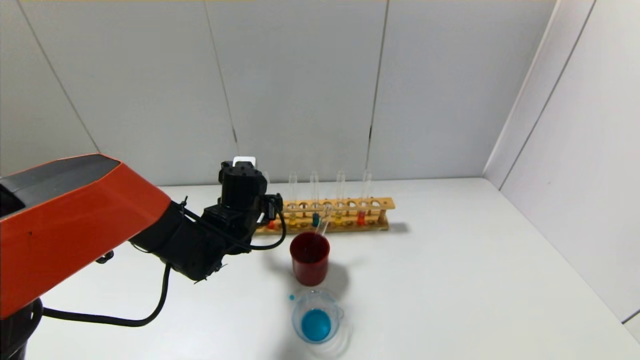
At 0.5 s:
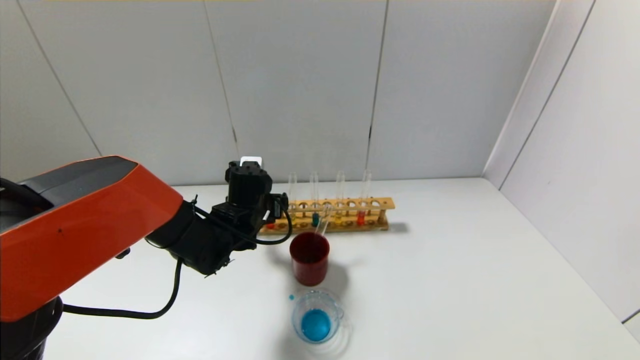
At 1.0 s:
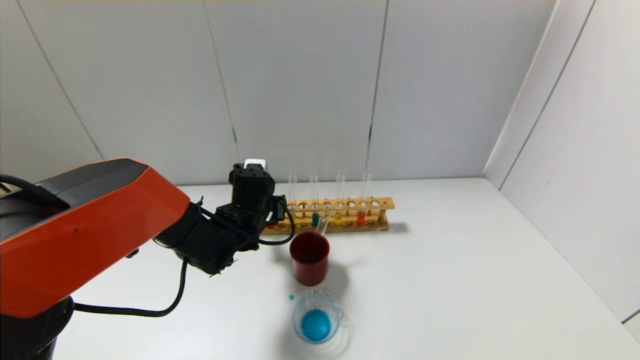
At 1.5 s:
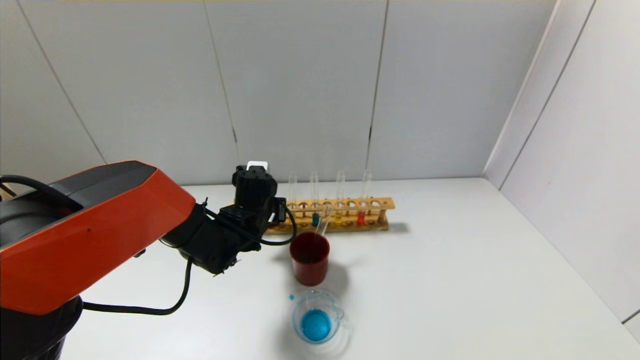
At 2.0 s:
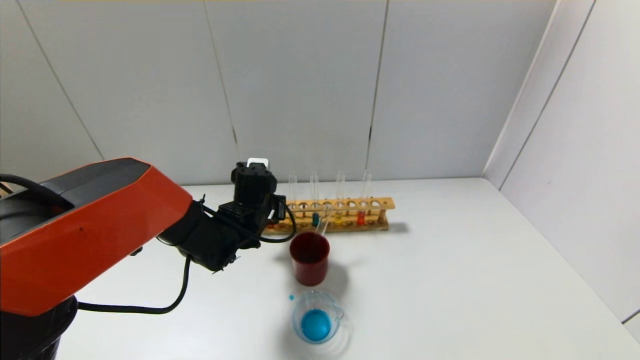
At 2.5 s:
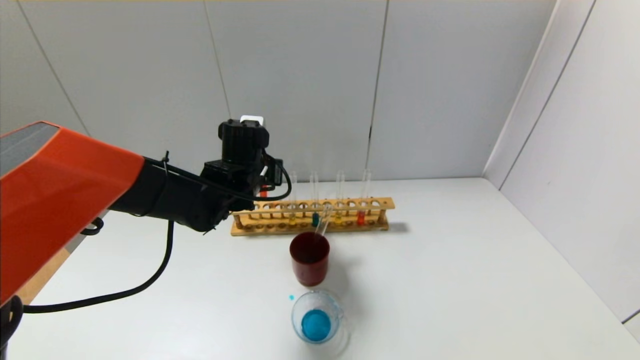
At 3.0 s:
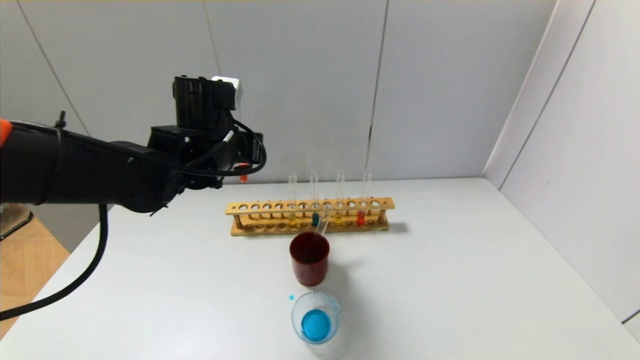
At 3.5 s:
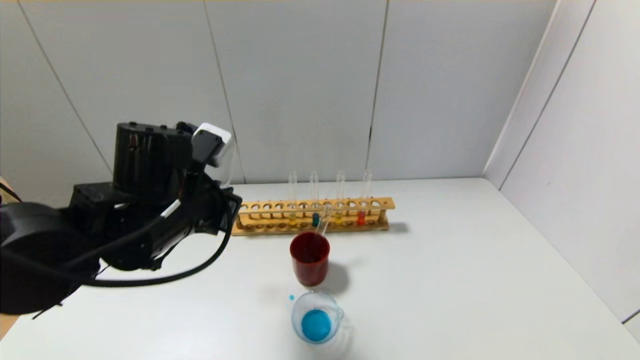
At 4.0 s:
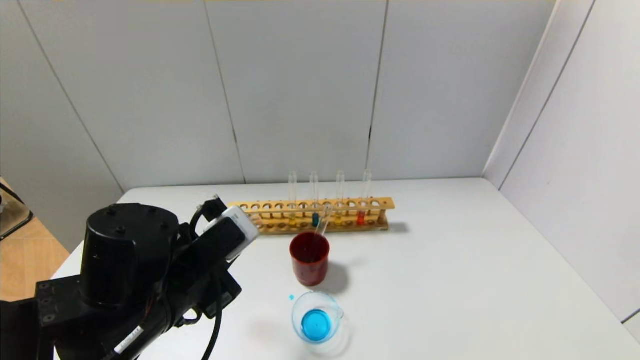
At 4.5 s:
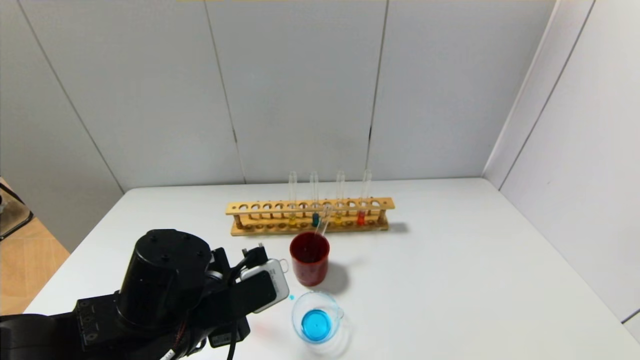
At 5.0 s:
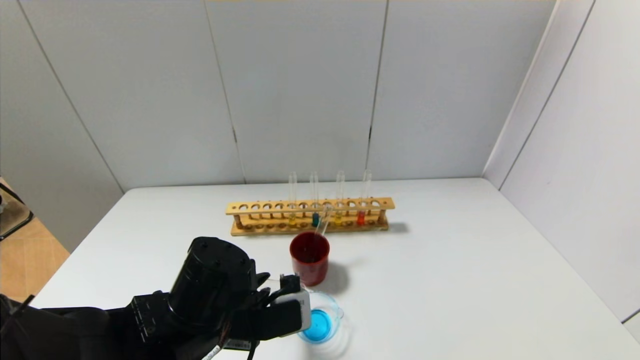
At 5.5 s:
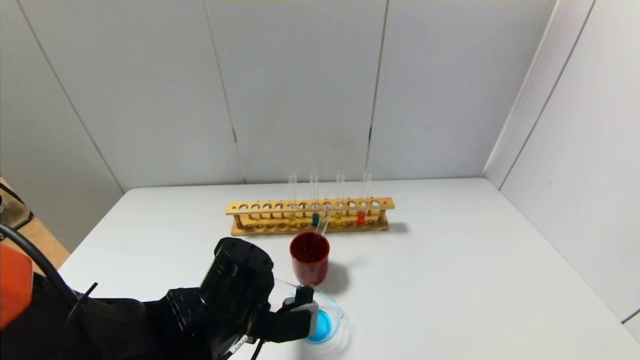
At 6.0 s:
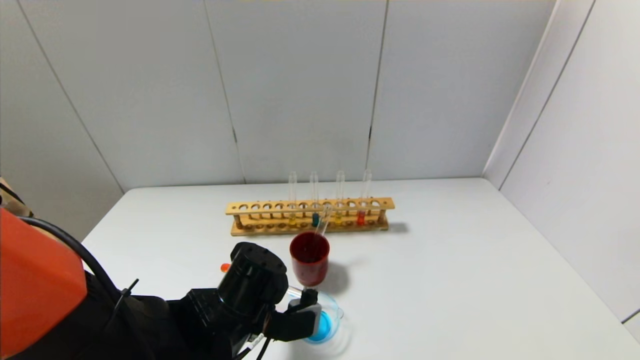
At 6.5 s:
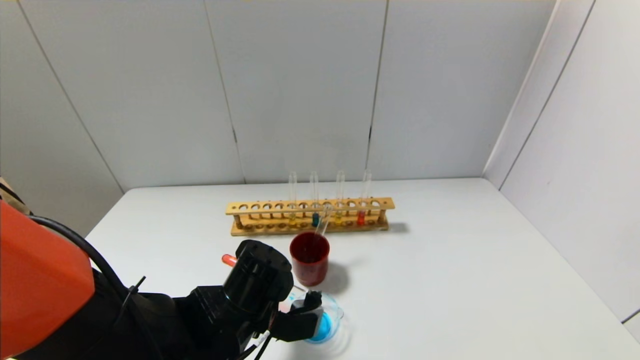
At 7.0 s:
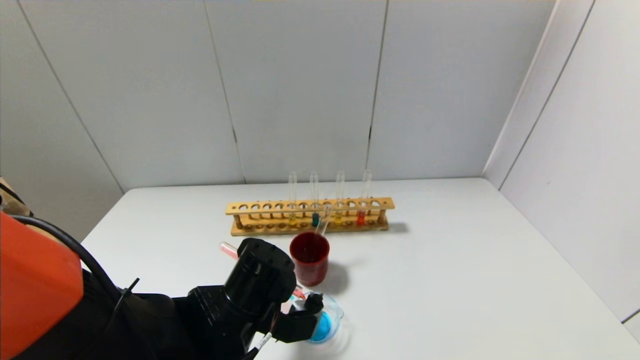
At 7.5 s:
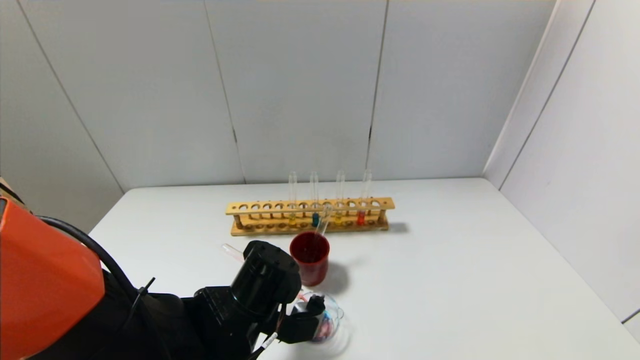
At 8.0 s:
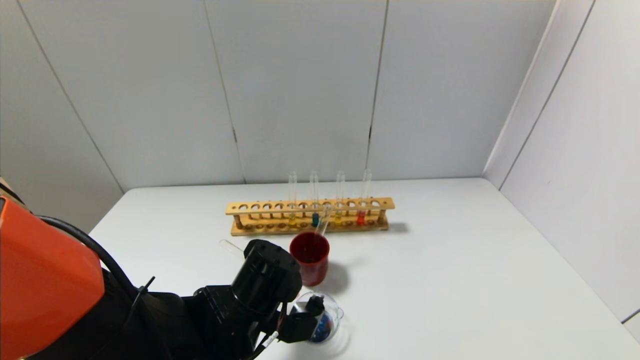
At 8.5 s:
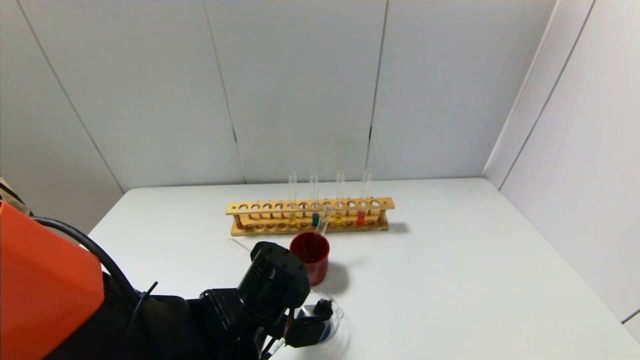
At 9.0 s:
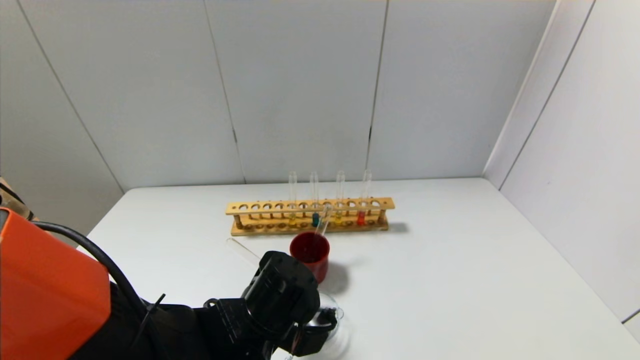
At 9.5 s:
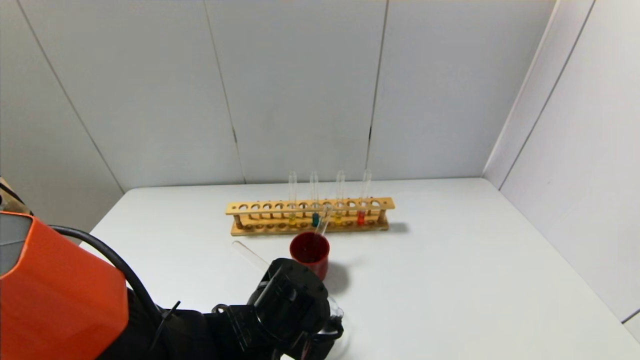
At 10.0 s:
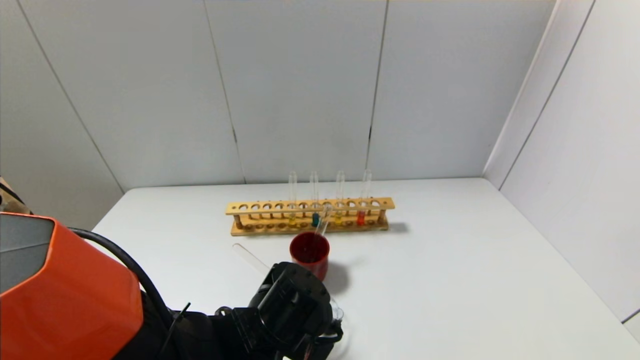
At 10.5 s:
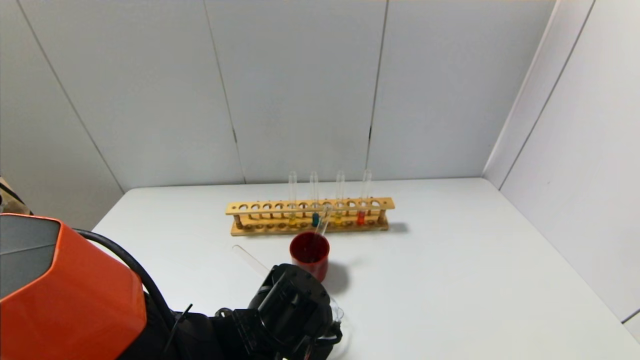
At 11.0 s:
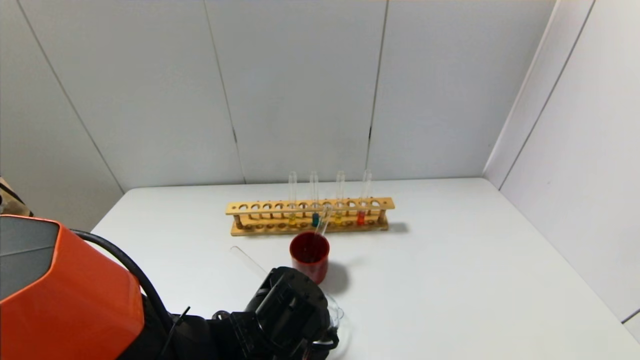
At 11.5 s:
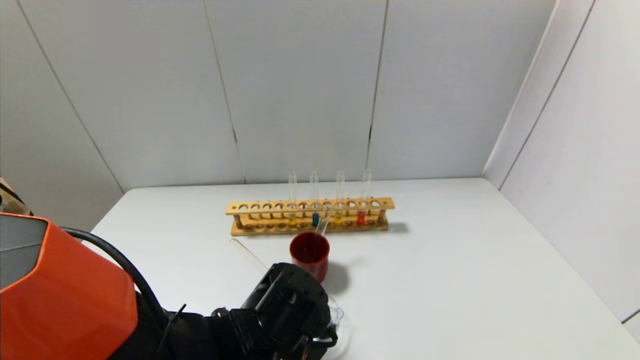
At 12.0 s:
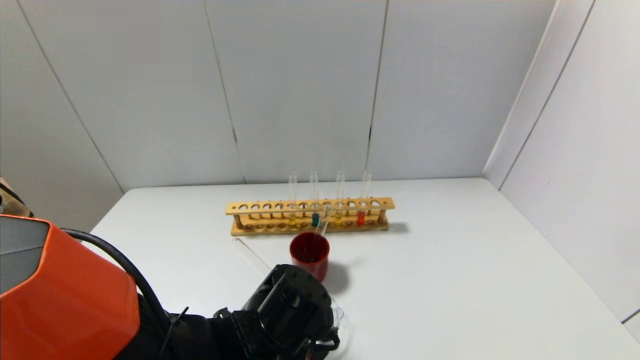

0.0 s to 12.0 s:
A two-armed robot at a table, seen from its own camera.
0.0 to 2.0 s: The left gripper closes its fingers.
2.0 to 4.0 s: The left gripper goes some 20 cm backward.
4.0 to 6.0 s: The left gripper is displaced downward and to the right by roughly 10 cm.
6.0 to 8.0 s: There are only small adjustments of the grippers.
8.0 to 12.0 s: The grippers stay close to where they were, moving slightly.

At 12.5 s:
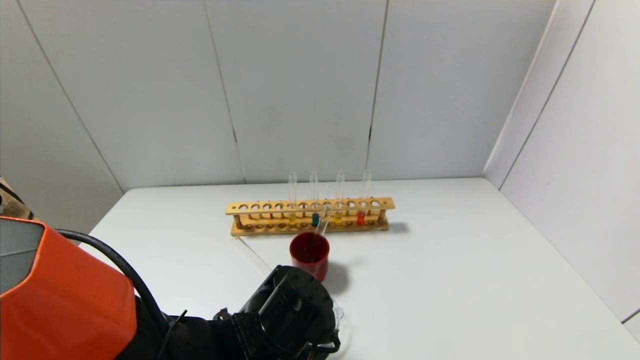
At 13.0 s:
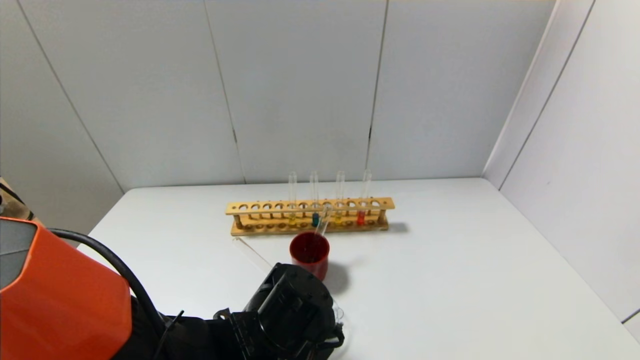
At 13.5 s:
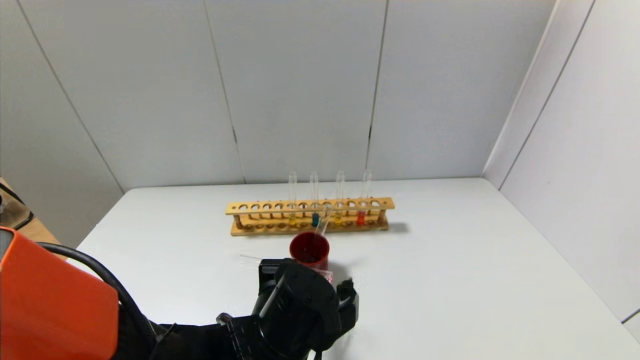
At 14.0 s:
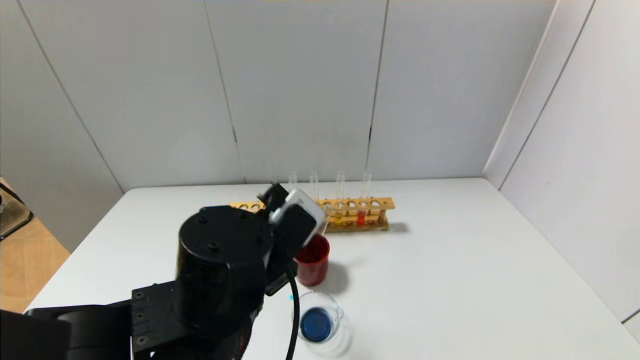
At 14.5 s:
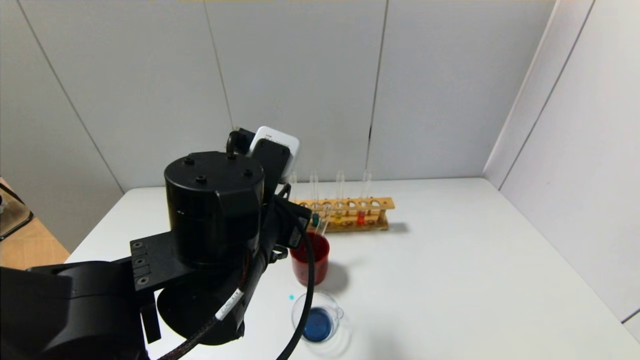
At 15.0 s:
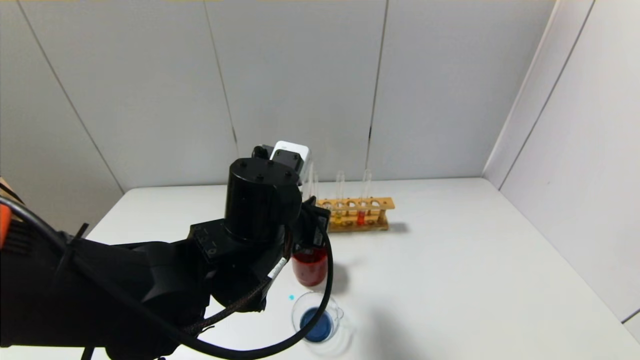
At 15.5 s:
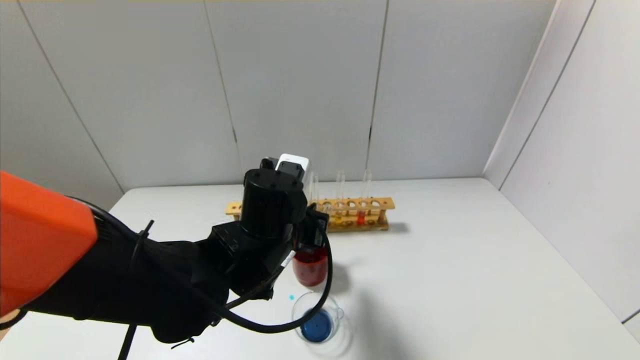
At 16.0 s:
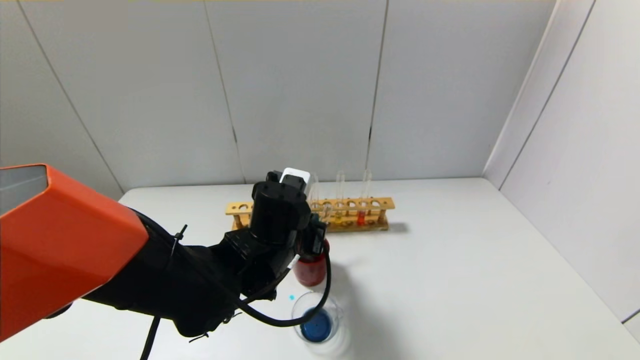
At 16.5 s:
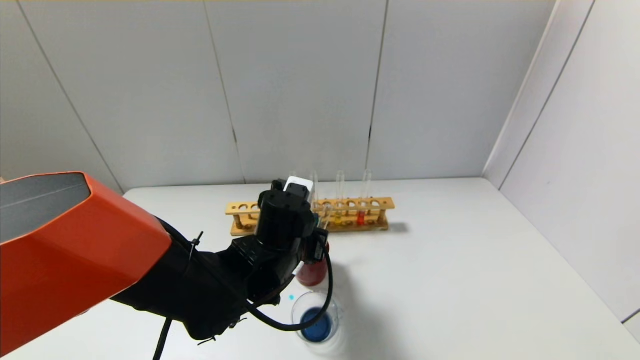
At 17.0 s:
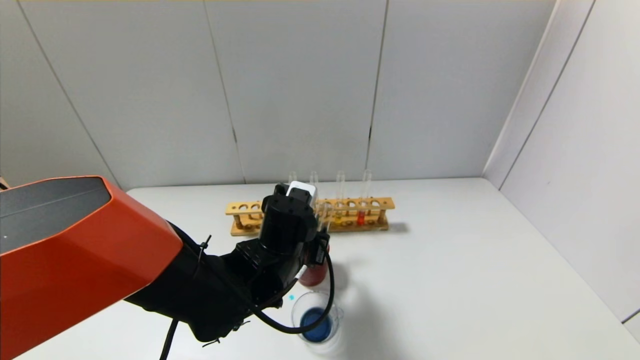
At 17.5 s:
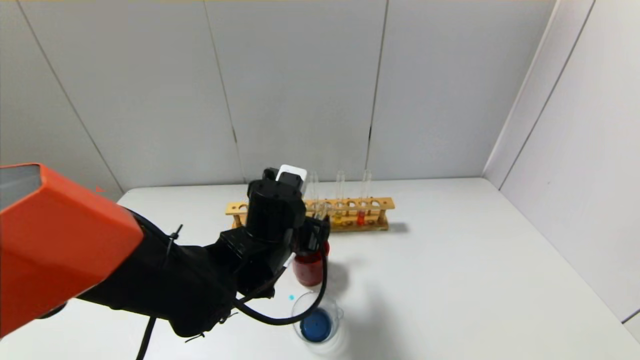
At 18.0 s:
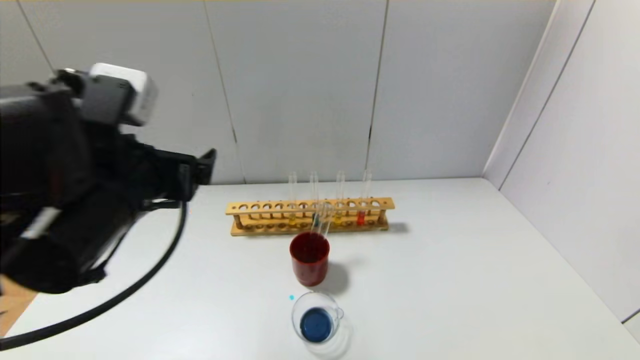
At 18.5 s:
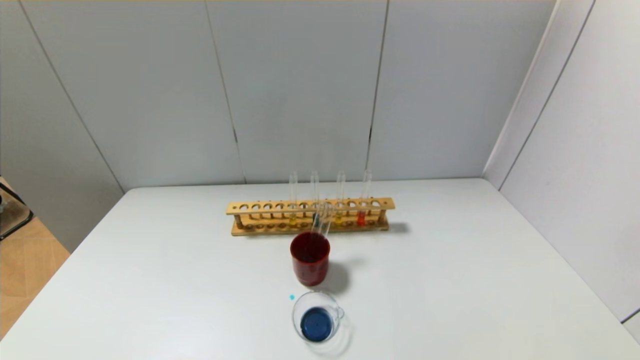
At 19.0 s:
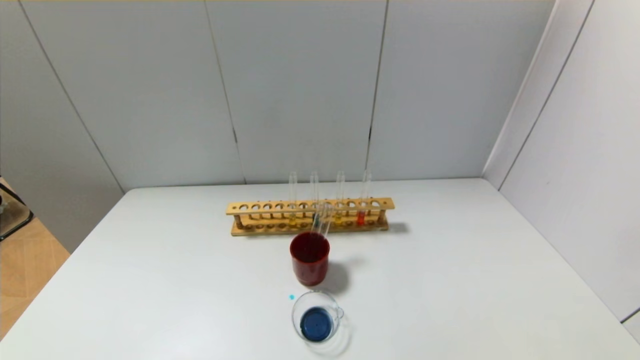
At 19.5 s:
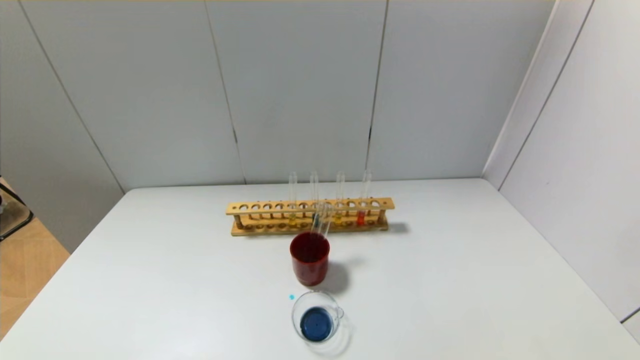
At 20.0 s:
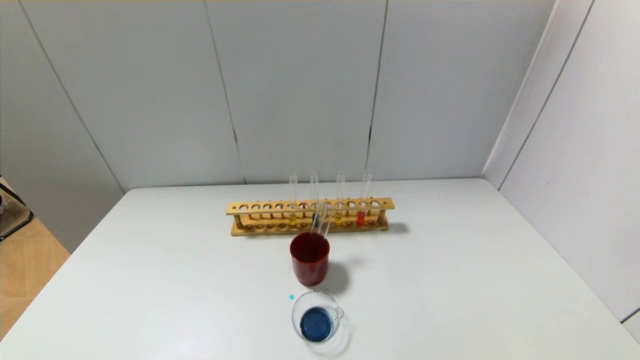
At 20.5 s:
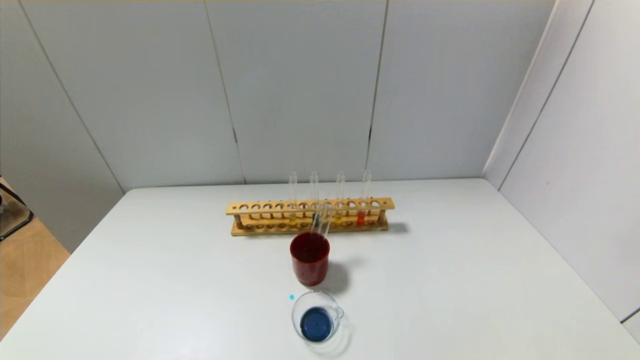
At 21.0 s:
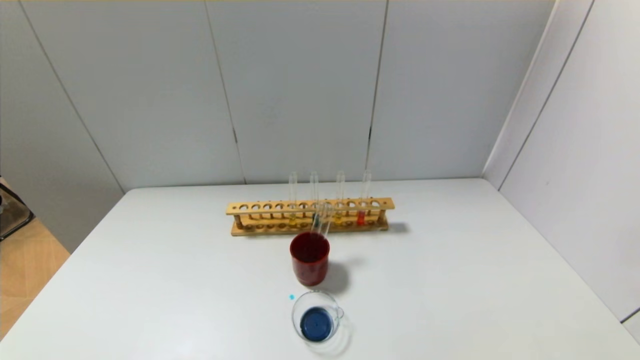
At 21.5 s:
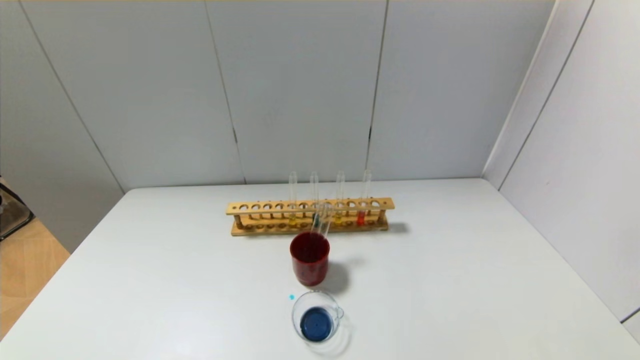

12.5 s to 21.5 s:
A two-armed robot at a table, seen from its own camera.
Step, 13.5 to 16.5 s: Place the test tube into the brown cup with the left gripper.
12.5 to 14.5 s: The left gripper shifts about 15 cm upward.
14.5 to 17.0 s: The left gripper goes about 15 cm downward and forward, and opens.
17.0 to 19.5 s: The left gripper is displaced backward and to the left by some 40 cm, and opens up.
